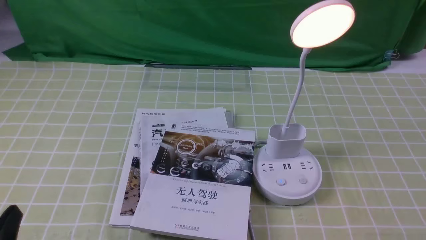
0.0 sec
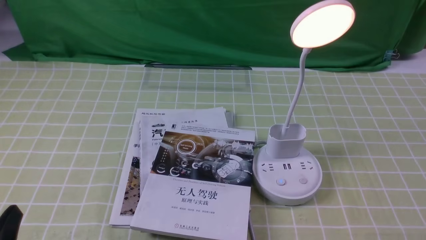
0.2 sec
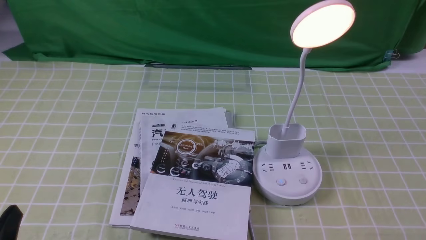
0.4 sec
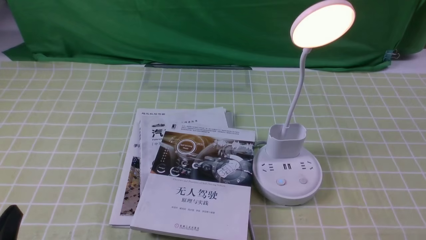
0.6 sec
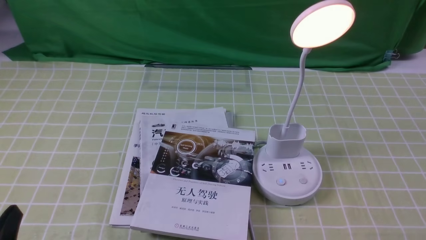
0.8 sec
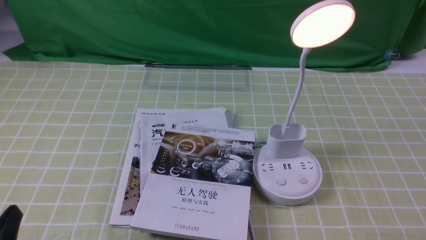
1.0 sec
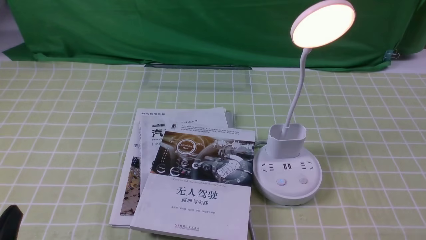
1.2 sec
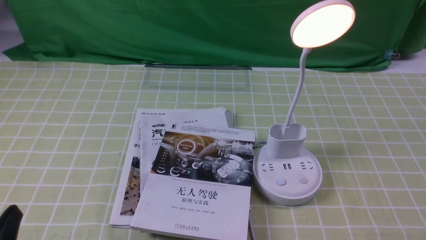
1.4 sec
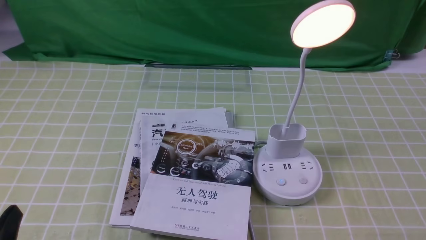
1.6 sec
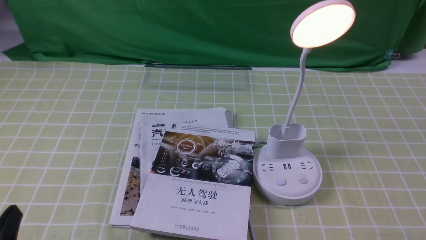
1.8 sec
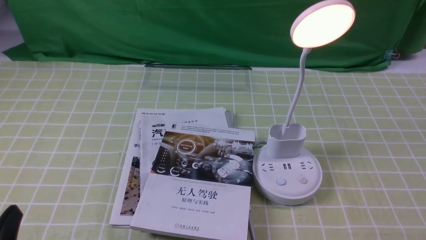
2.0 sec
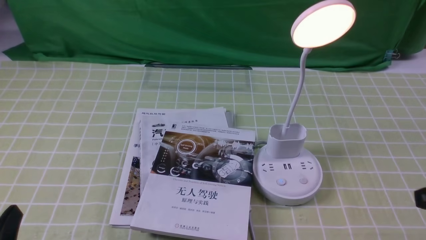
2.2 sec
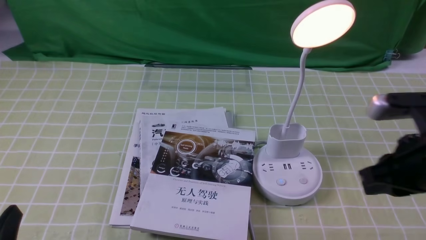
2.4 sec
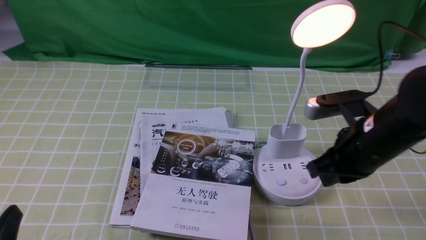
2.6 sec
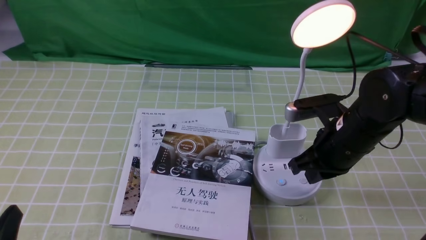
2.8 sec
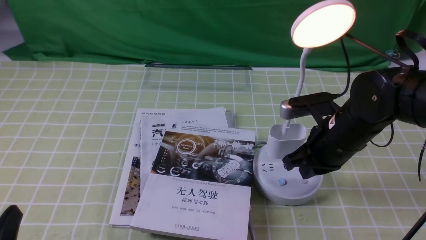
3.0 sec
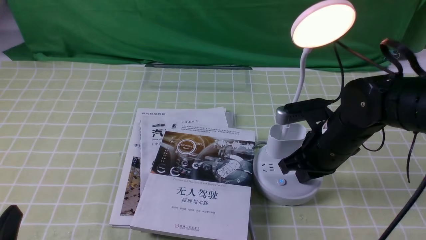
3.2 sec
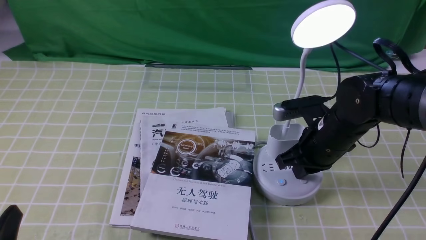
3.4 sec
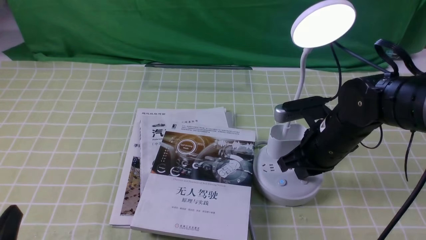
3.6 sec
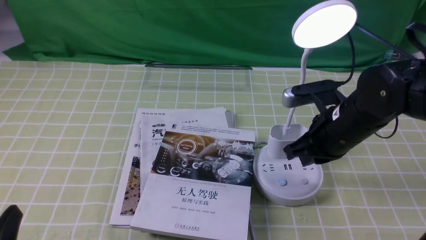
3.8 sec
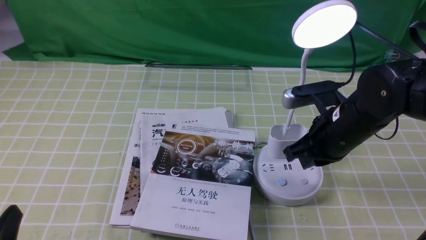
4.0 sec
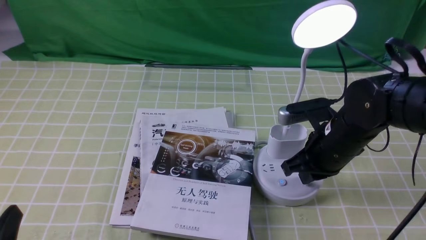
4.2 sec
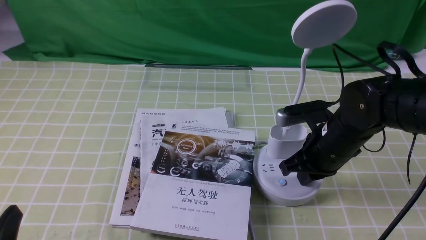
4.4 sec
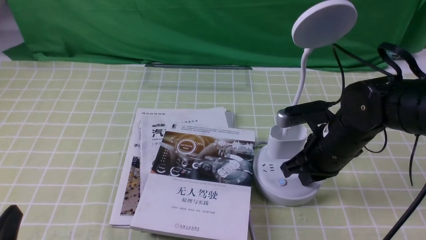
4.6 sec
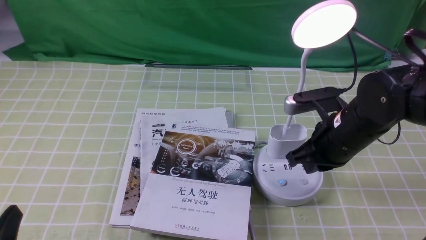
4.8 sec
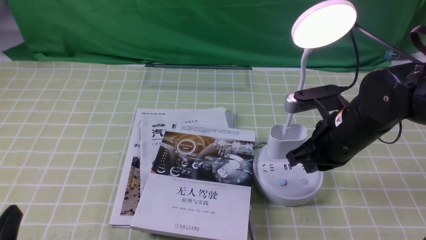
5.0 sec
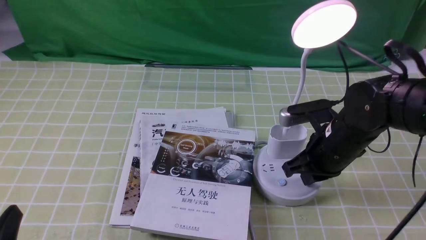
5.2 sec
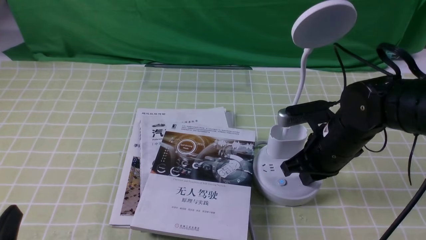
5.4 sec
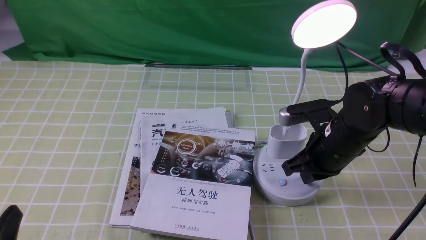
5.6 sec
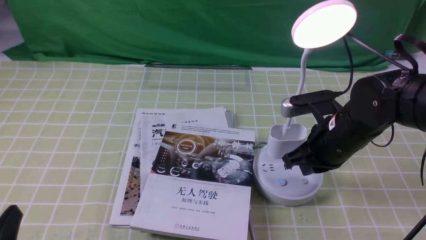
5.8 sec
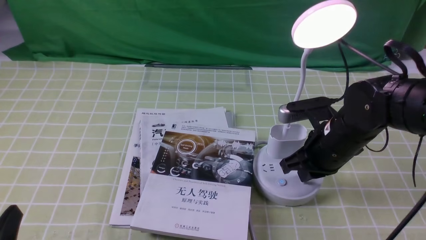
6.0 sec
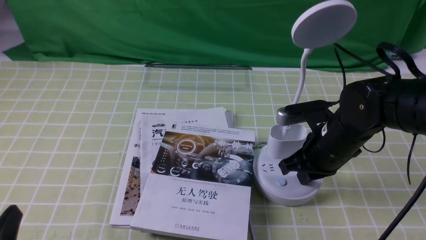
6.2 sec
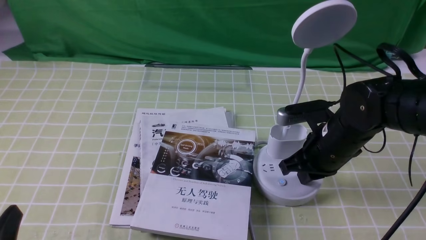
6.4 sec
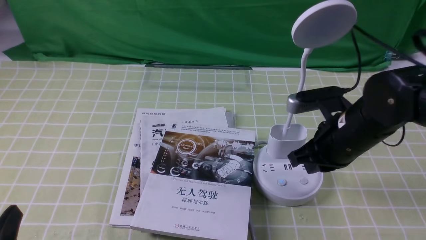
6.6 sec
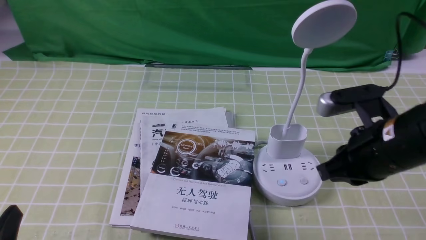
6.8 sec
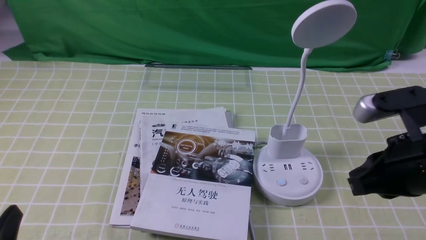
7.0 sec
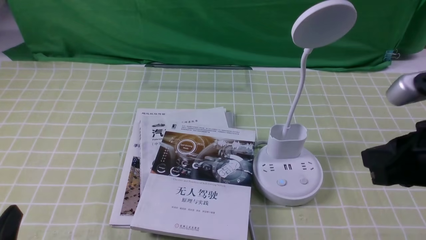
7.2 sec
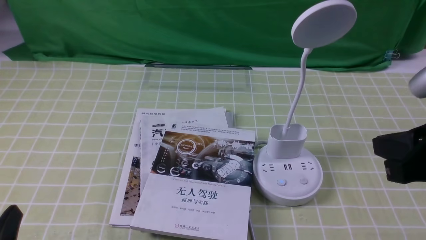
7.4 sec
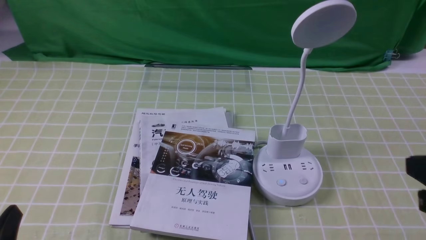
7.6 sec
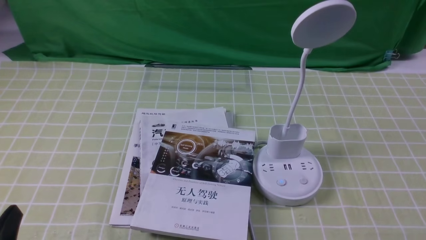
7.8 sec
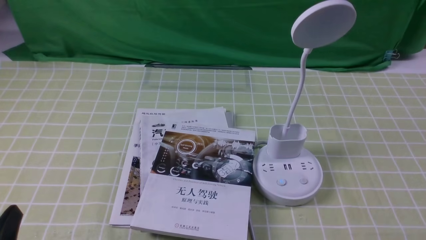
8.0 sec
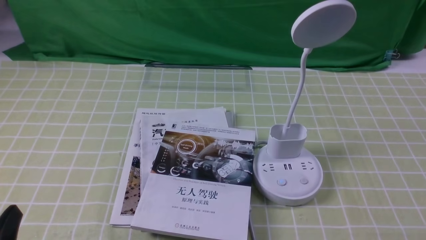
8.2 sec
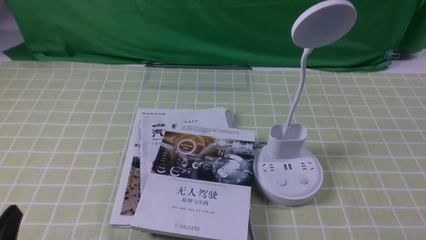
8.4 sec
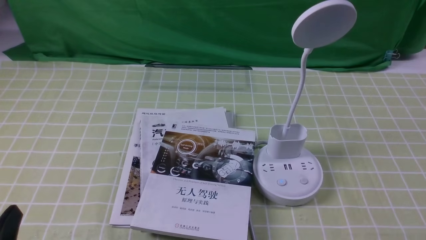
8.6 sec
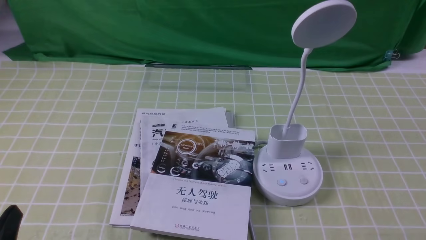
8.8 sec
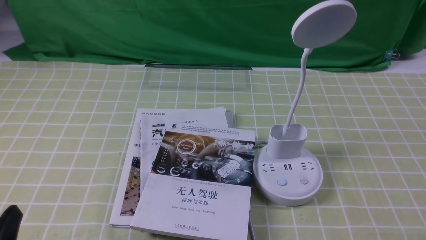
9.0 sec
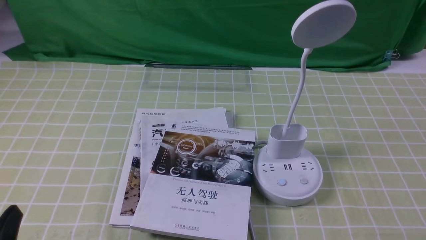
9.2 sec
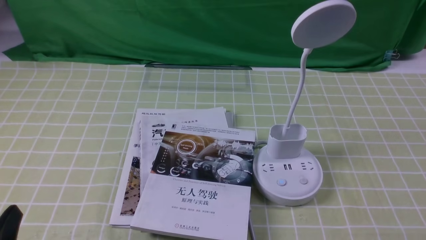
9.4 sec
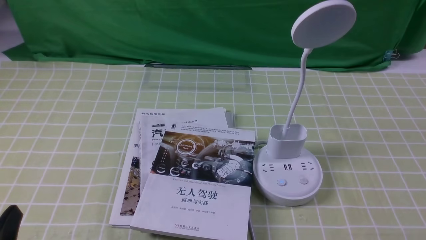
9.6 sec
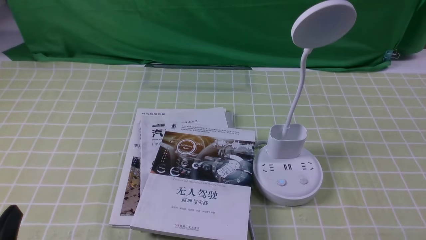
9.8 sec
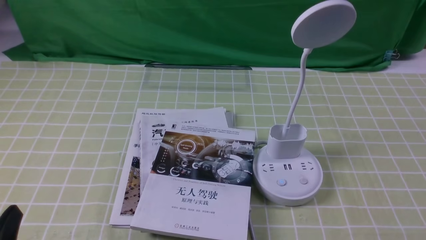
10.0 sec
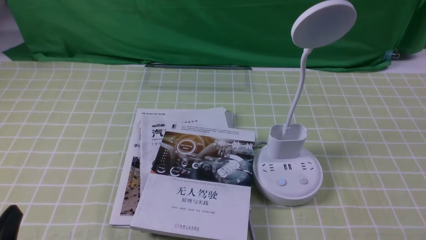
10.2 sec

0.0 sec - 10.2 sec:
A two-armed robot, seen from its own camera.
Task of the whole recording: turn off the desk lamp on the green coffee tablecloth by hand.
Step, 0.0 sec - 6.6 sec: use the right arm to press the button switch on the lamp holder.
1.4 sec - 3.0 sec: The right gripper heads forward and to the left, covering some 30 cm, and closes its fingers.
3.0 sec - 5.8 sec: The grippers move only a little.
5.8 sec - 7.2 sec: The right gripper heads backward, upward and to the right, covering approximately 20 cm.
7.2 sec - 8.8 sec: The right gripper heads downward, backward and to the right, covering approximately 20 cm.

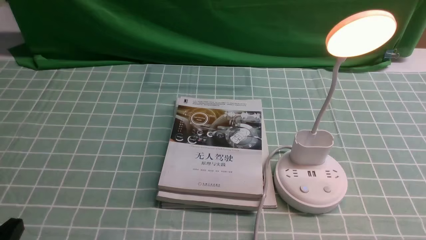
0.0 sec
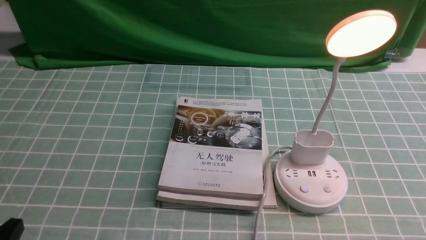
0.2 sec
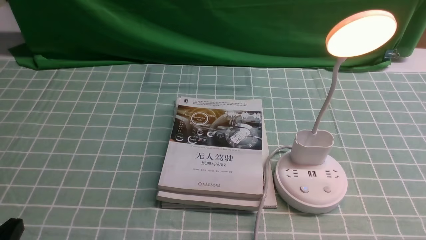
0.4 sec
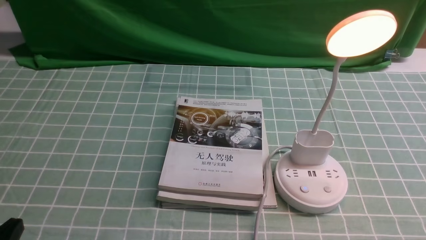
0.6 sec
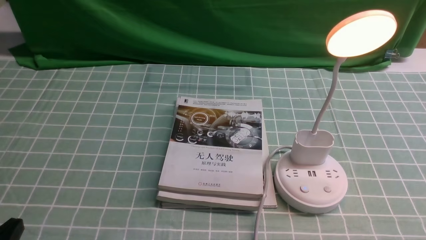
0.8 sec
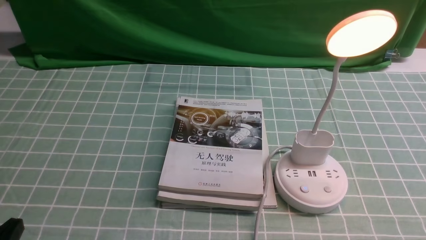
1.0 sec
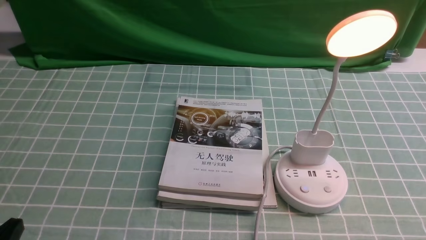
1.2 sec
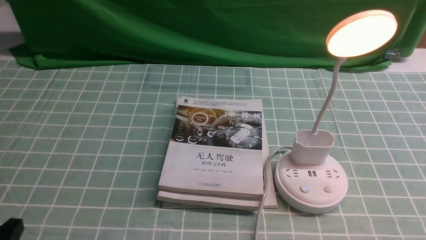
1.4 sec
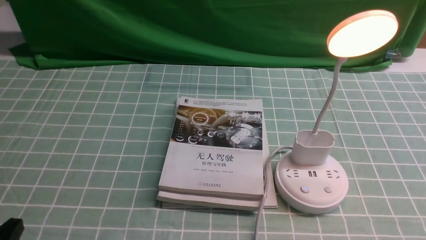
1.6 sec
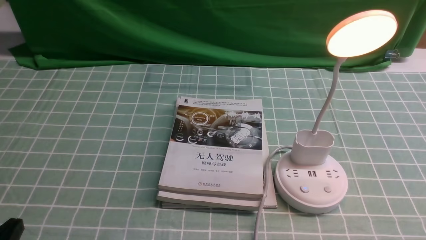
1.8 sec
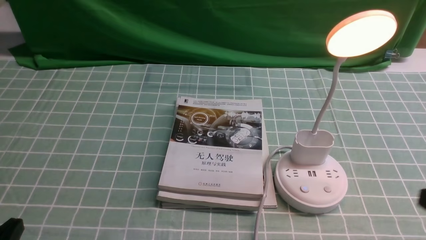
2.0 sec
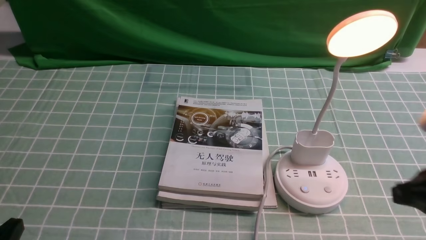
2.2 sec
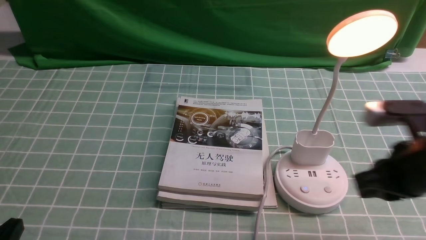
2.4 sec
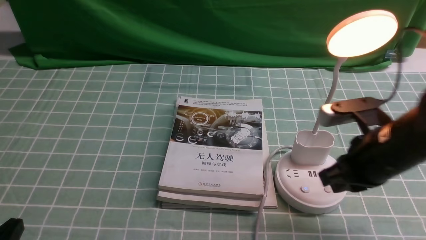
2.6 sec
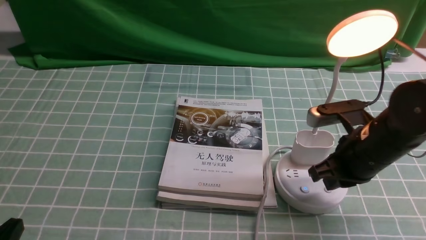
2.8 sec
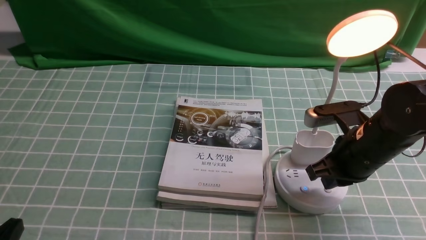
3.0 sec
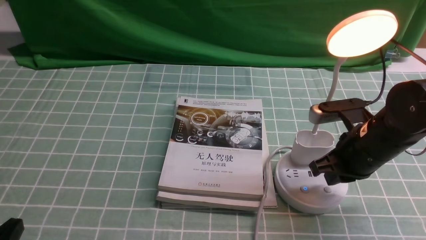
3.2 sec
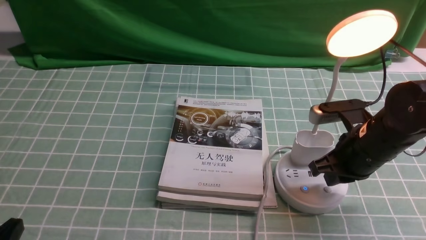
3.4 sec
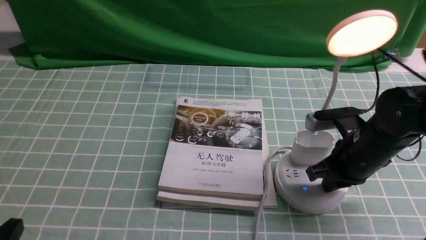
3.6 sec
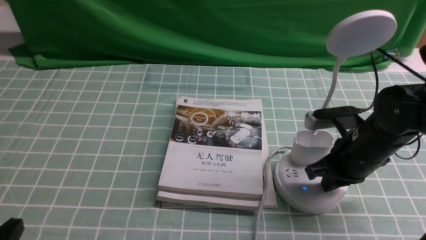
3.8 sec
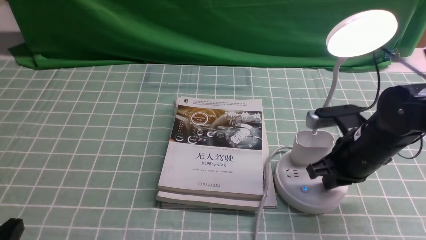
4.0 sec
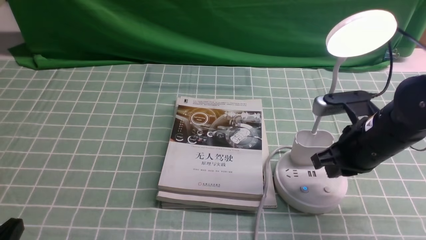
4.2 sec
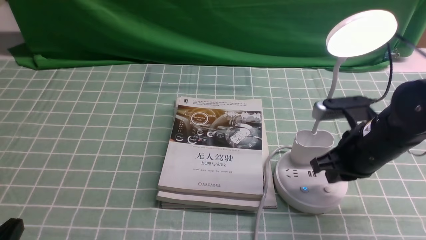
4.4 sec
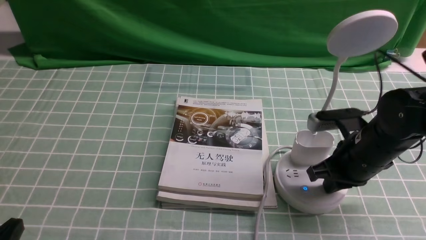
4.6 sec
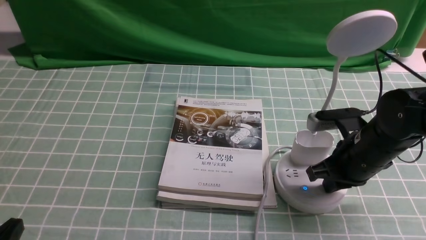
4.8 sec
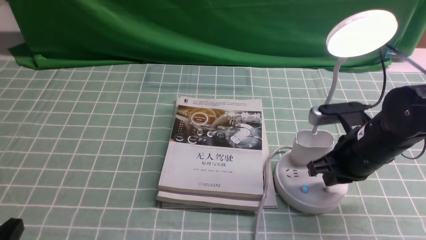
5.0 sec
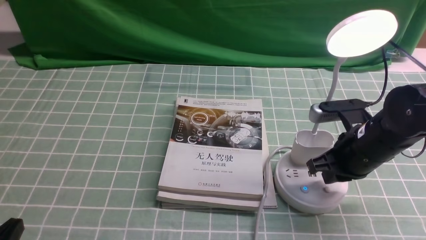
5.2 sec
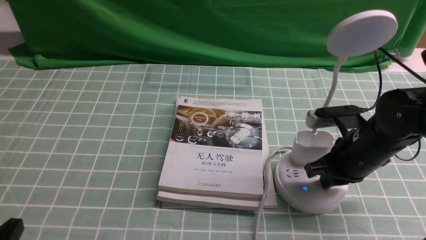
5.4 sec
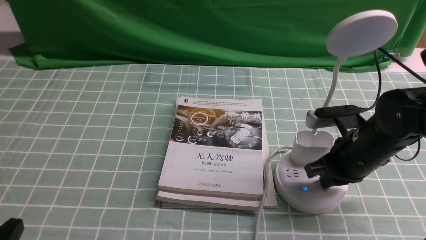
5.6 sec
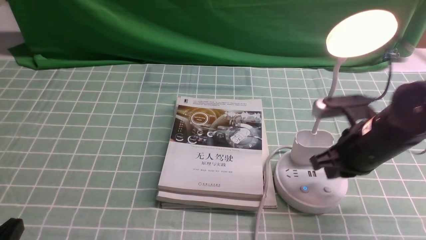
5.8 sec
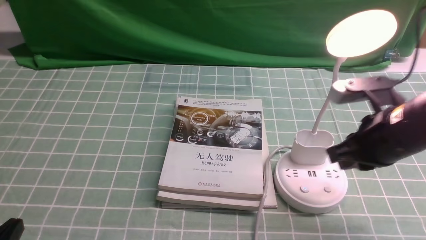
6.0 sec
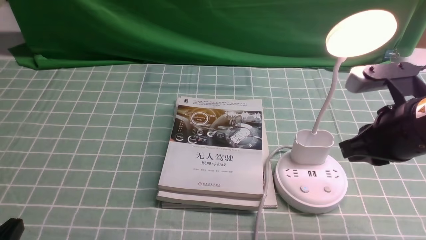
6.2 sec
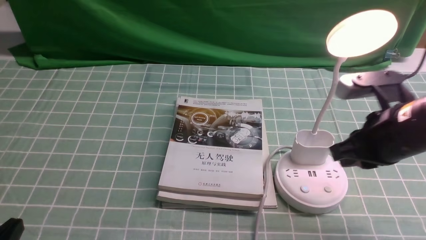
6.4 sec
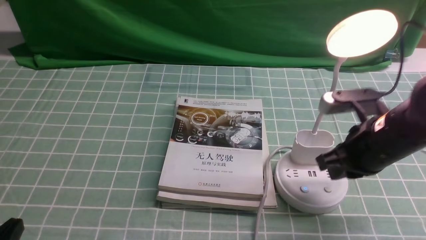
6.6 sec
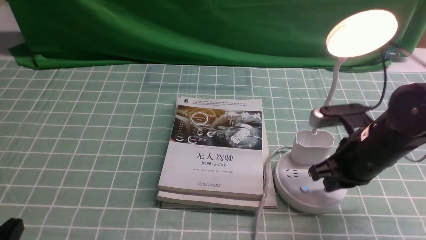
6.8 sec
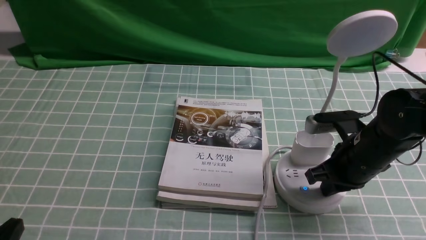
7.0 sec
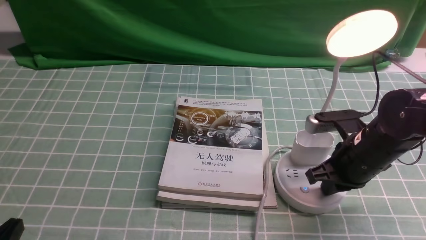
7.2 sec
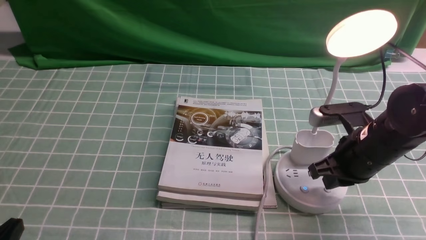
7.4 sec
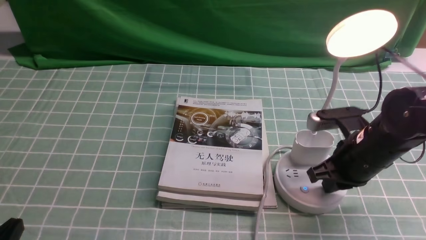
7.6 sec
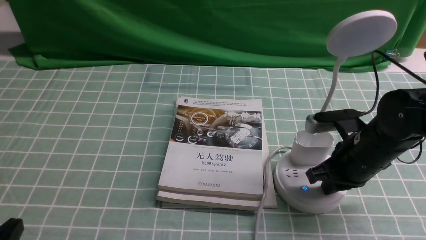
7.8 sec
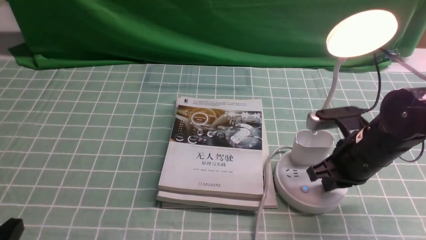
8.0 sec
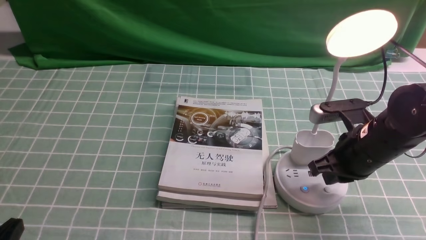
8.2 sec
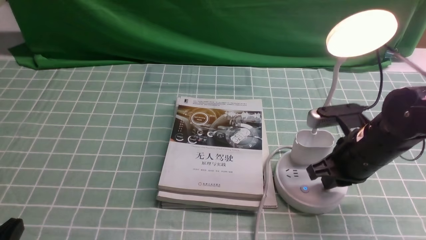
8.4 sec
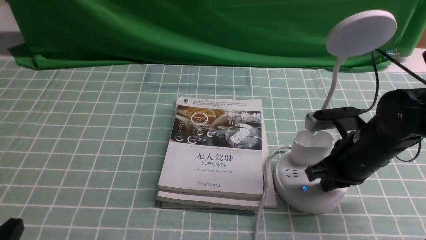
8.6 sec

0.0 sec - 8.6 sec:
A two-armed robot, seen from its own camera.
Task of the whole recording: turn off the desk lamp on the blue coffee tablecloth by hand.
1.4 sec - 2.8 sec: The right gripper moves forward and to the left, approximately 25 cm, and closes its fingers.
2.8 sec - 5.8 sec: The grippers make only small movements.
5.8 sec - 7.2 sec: The grippers make only small movements.
7.2 sec - 8.6 sec: Neither gripper changes place.
